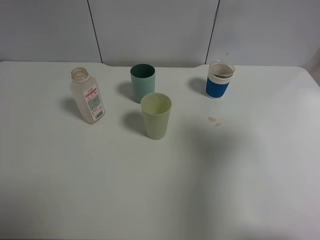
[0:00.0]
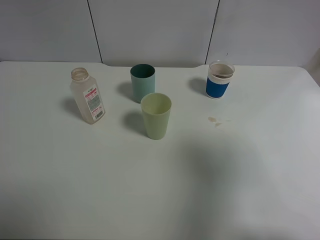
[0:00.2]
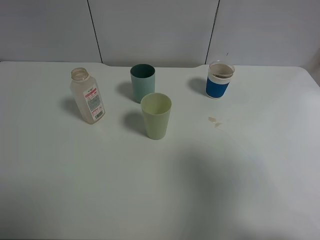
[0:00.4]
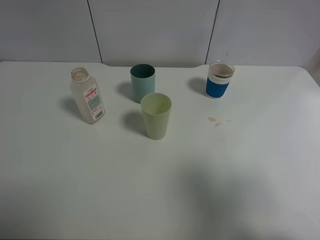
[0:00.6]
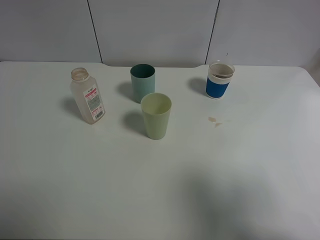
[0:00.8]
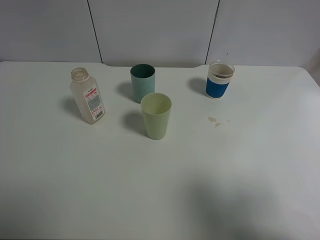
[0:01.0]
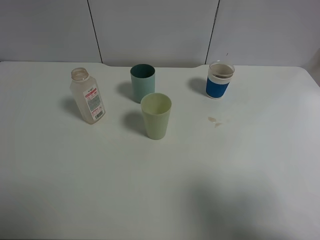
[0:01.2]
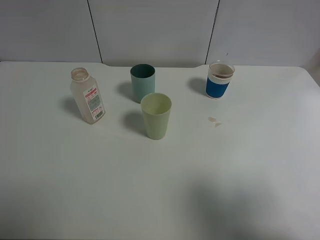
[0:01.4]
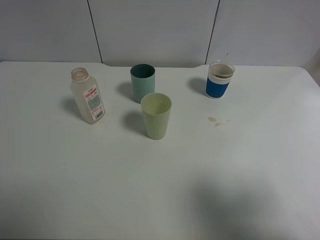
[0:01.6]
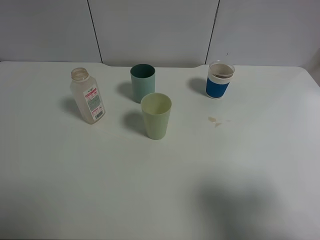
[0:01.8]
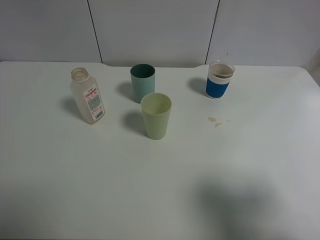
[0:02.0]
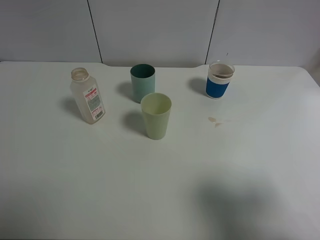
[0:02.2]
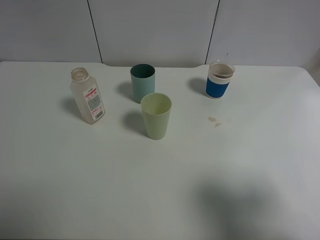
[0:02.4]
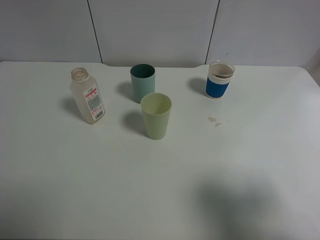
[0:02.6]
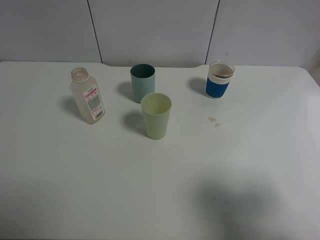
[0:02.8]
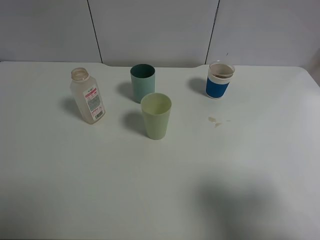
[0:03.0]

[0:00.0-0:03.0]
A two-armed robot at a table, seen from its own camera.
Task of the whole recording: use a clamp to hold the bottle of the drink, pour the beverage into a random cup, then clamp the cup containing the drink and pour the drink into another random cup.
0:00.0 to 0:01.6: The right gripper shifts approximately 10 cm backward.

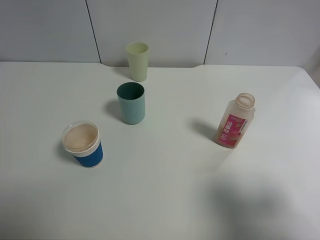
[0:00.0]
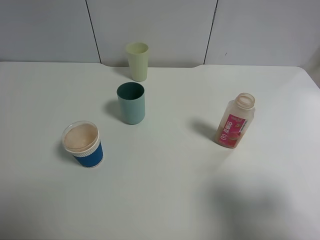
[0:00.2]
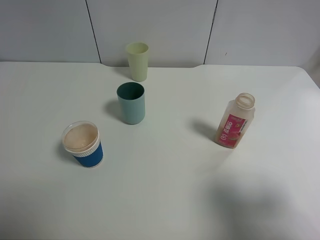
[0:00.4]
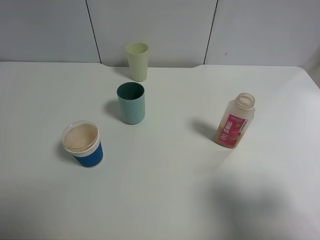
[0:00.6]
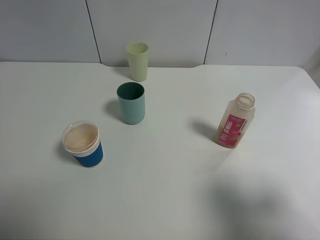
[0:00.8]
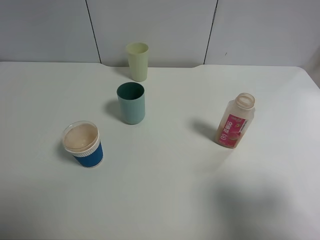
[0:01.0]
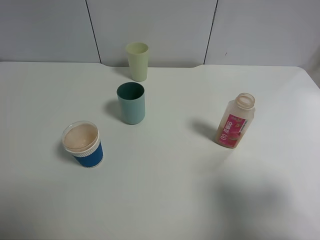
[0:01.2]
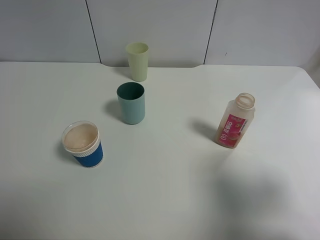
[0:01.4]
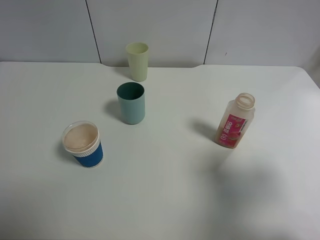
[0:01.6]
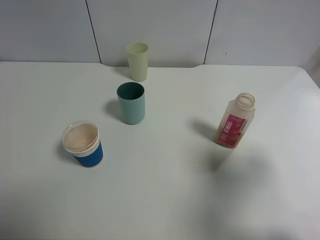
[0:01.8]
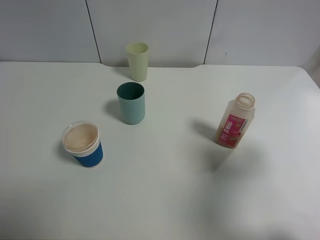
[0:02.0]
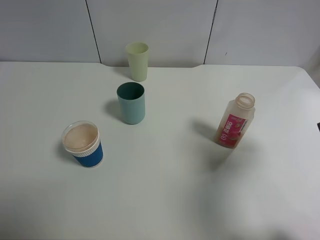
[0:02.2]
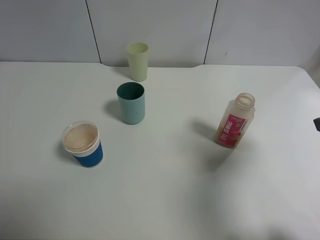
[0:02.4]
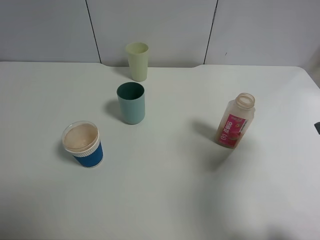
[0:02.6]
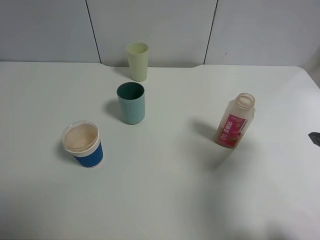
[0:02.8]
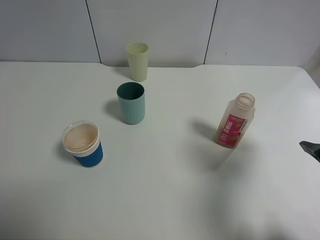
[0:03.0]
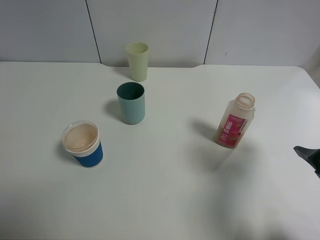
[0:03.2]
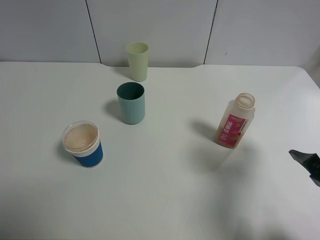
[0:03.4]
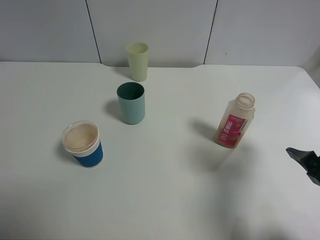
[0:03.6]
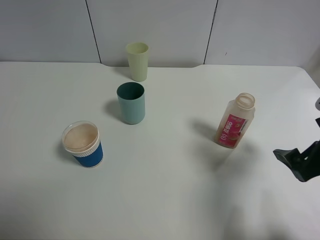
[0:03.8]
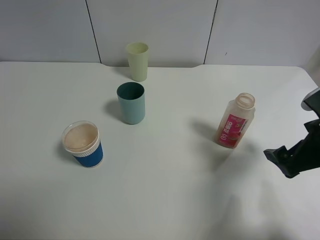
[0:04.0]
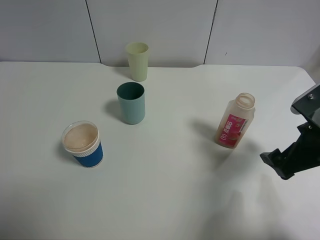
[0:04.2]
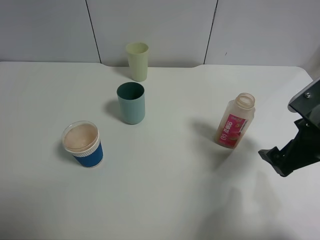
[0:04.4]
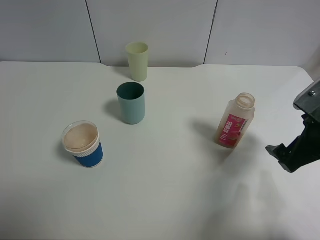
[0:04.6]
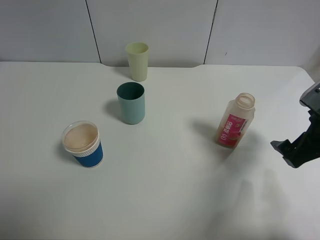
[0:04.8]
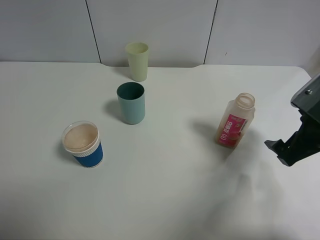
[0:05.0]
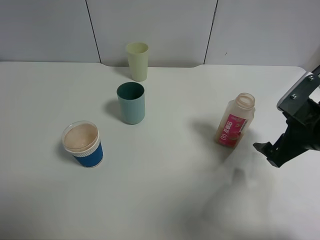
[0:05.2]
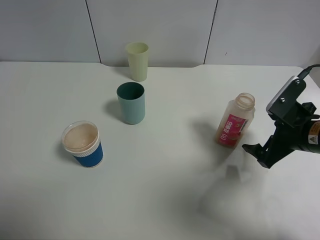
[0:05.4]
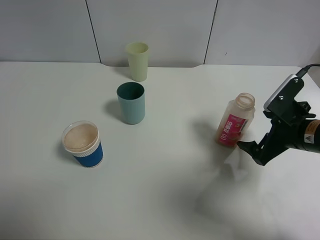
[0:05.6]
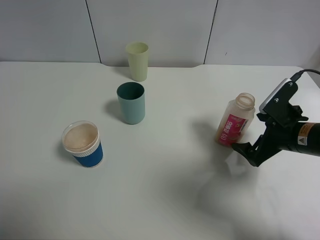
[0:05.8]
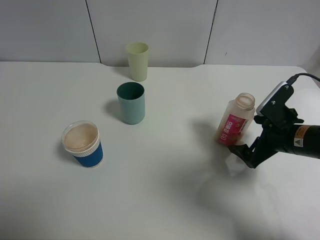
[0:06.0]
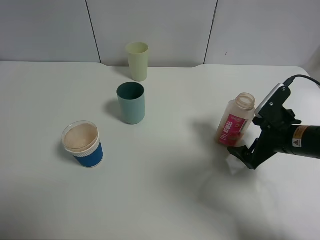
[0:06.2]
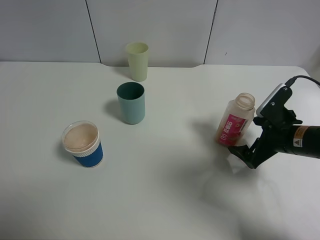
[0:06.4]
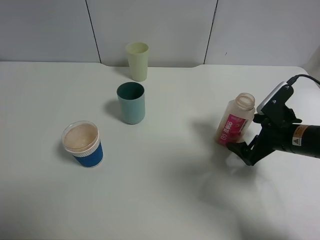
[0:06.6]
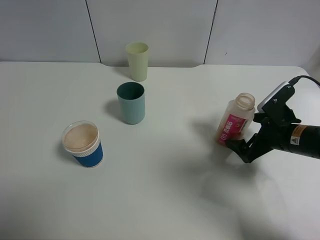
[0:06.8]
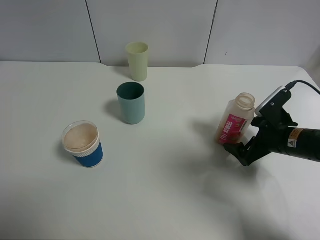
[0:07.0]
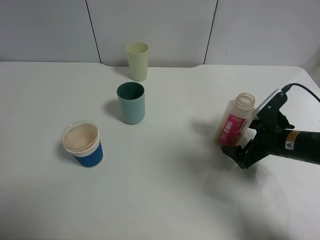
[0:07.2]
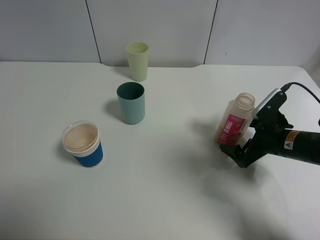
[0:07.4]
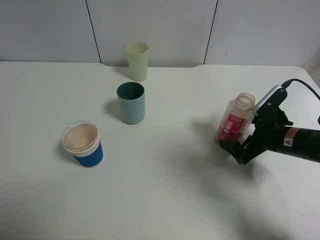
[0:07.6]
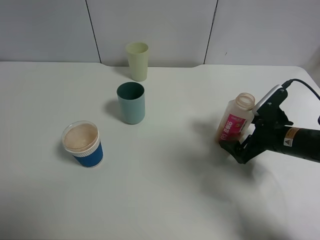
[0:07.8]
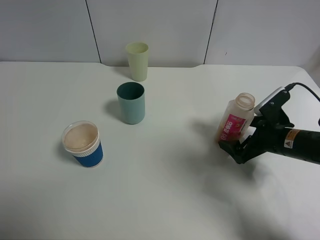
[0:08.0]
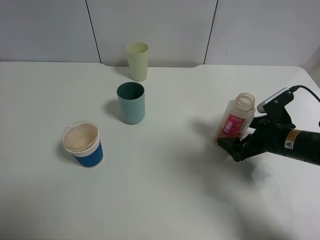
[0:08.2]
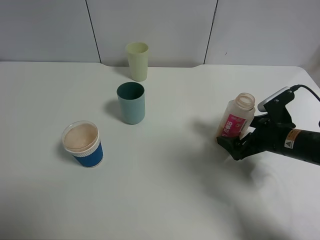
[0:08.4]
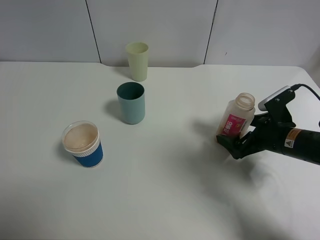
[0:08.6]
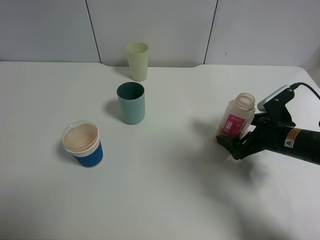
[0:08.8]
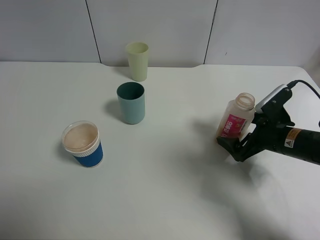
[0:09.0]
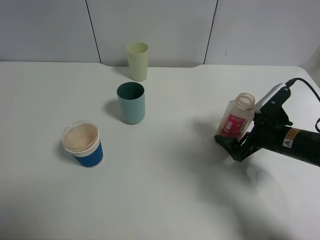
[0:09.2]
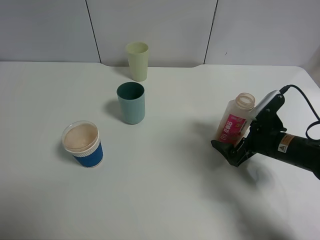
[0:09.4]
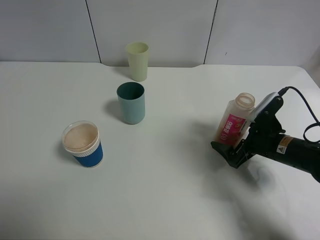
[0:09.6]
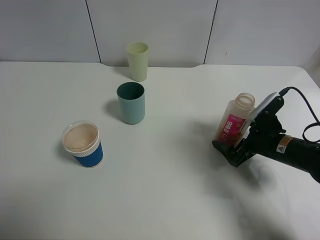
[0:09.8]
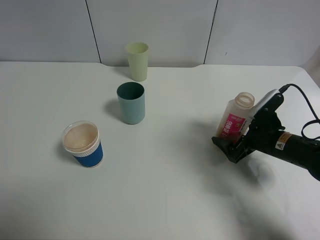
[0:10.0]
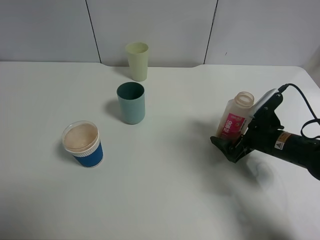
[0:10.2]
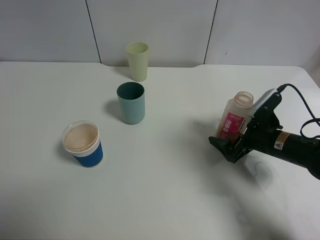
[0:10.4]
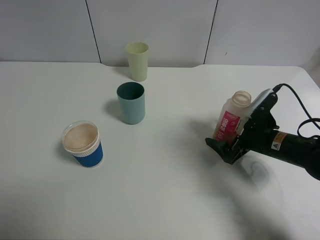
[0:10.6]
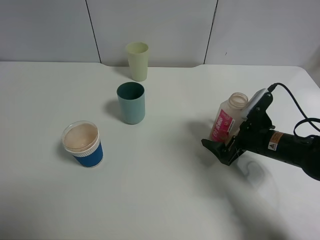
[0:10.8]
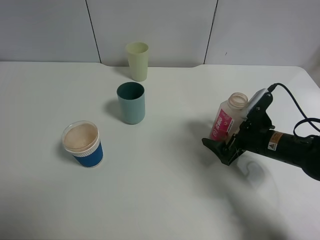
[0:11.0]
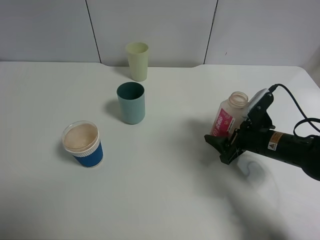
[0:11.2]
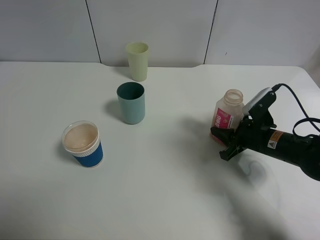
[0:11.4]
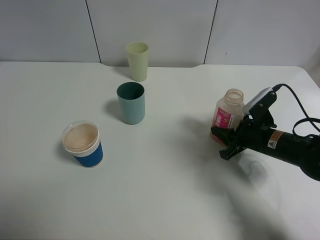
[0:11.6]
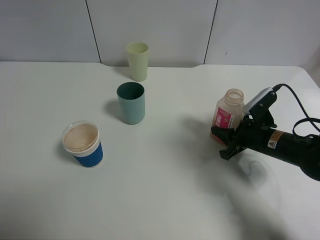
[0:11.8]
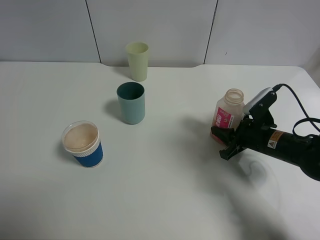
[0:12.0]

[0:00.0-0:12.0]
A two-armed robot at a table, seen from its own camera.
Task of the whole recording: use a clamp to hold the bottle of the drink, pour the beverage into a random cup, then clamp the cup containing the drink and pour the drink into another random cup.
0:00.0 to 0:01.6: The grippers move only a little.
0:01.6 to 0:03.0: The right gripper heads forward, covering about 10 cm.
0:03.0 to 0:04.4: The right gripper travels downward by about 5 cm.
0:04.4 to 0:06.0: The right gripper shifts some 10 cm forward and downward.
0:06.0 to 0:10.4: The grippers move only a little.
0:10.4 to 0:12.0: The right gripper closes its fingers.

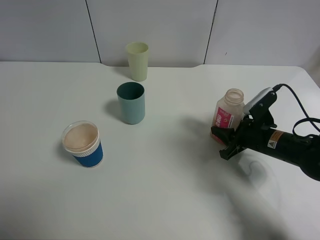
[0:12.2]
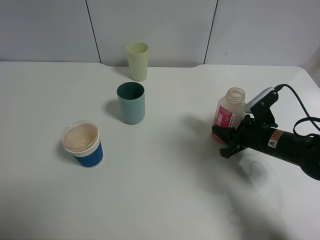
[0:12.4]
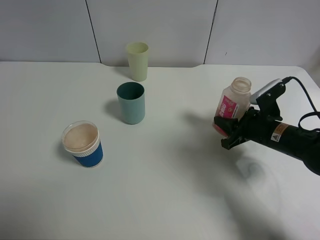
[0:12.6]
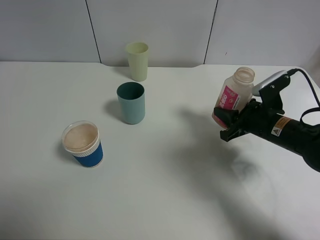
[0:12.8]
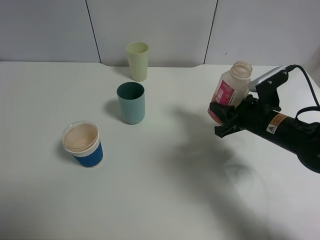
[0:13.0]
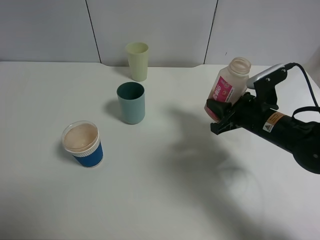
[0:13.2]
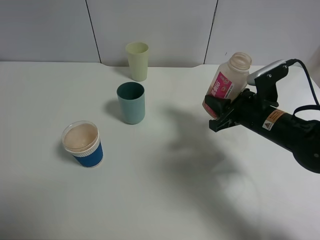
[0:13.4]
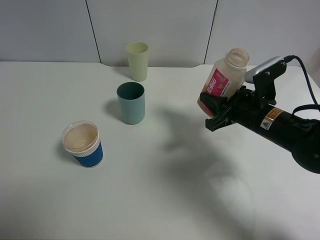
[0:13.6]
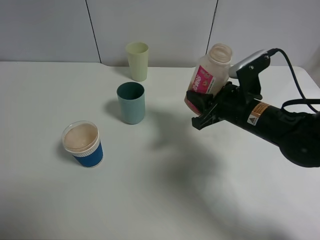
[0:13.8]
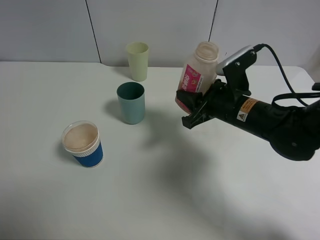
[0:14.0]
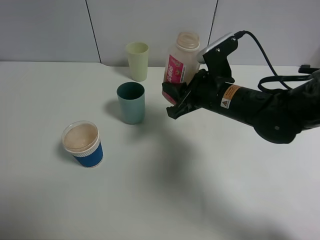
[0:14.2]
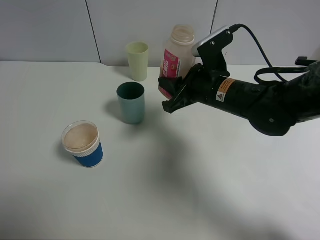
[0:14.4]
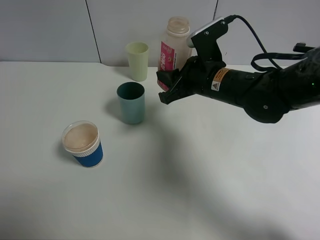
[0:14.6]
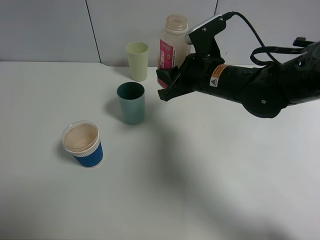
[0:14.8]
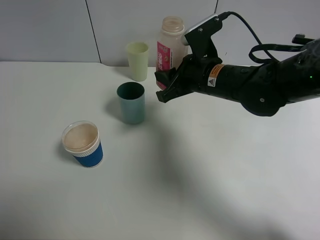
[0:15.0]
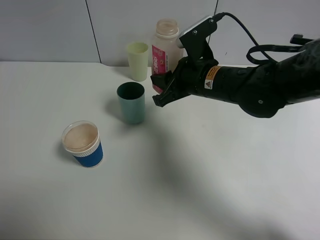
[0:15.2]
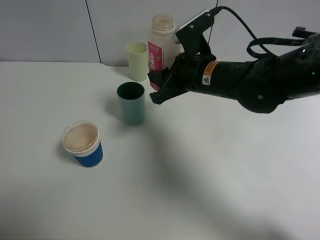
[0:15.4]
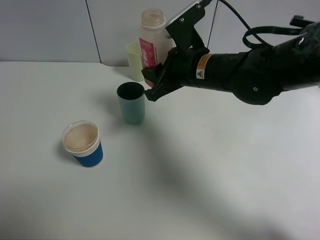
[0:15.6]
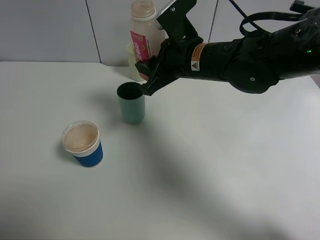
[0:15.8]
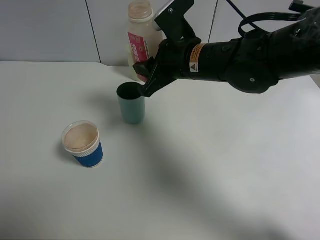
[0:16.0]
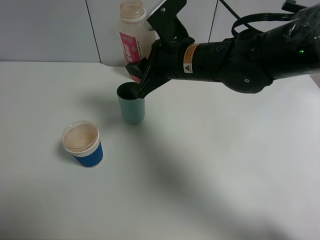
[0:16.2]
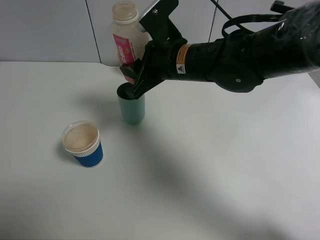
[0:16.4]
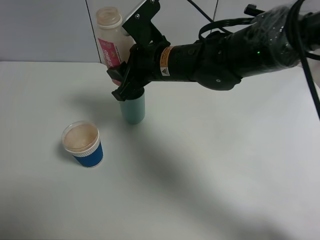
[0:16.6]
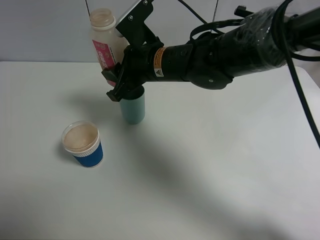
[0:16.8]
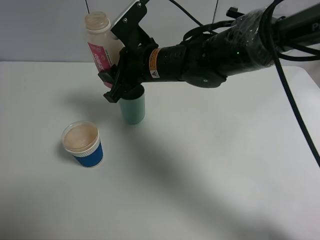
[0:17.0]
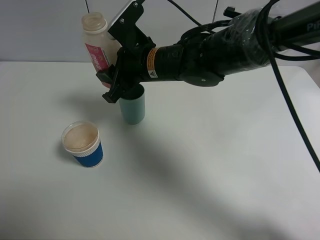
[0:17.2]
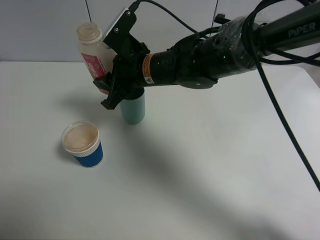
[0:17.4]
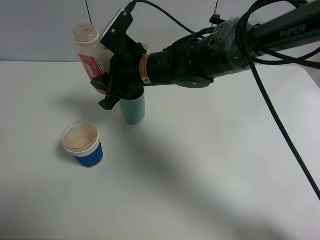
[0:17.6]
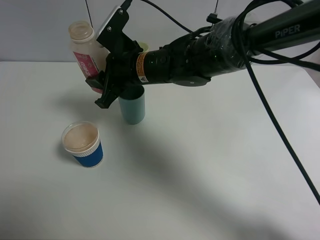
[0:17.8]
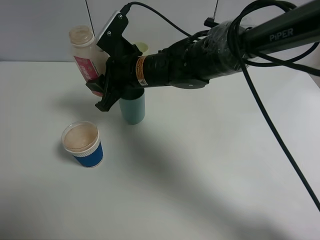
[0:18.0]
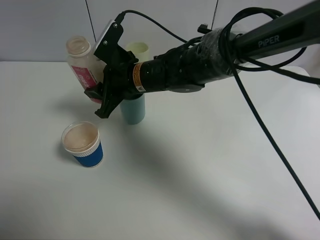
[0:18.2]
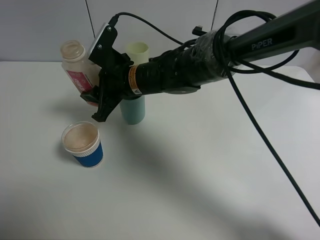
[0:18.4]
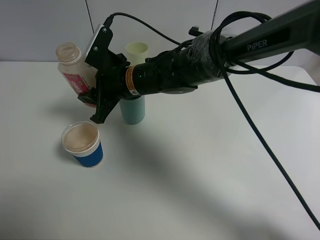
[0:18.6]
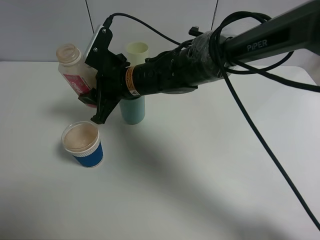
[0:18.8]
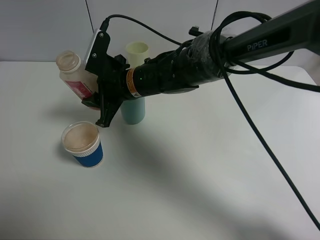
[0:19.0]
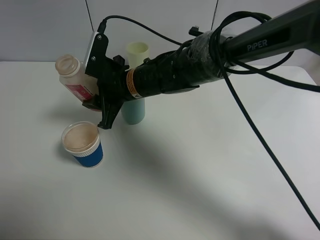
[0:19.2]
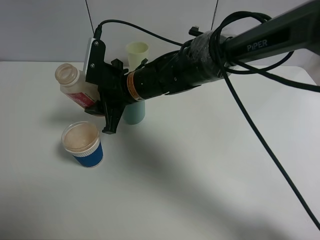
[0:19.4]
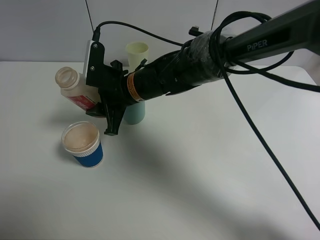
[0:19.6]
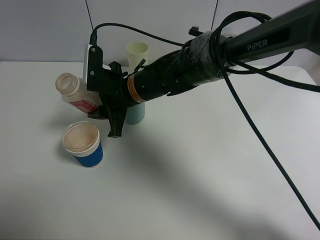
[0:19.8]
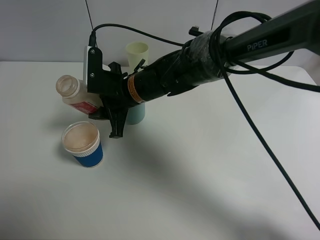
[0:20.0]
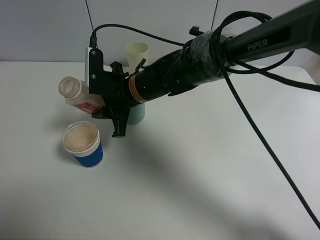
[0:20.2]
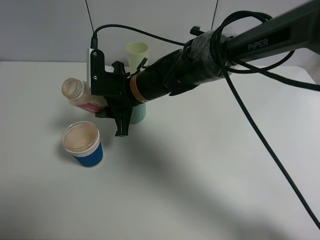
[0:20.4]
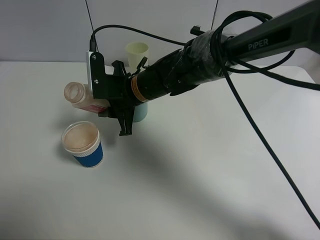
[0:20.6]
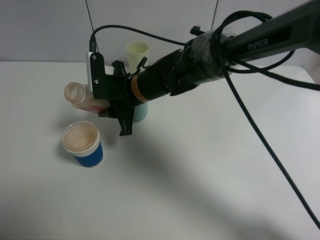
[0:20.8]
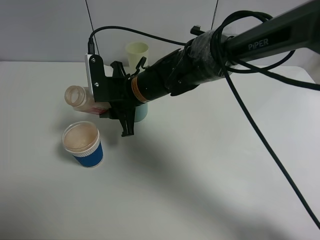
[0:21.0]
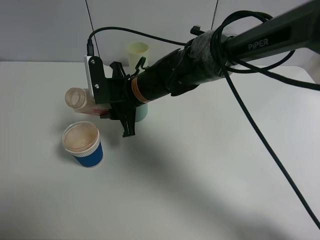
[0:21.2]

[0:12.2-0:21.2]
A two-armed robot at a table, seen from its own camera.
Task of the whole recording: use a clamp to hold the bottle of the drink, pour the beverage into a random cup, then clamp the cup containing the drink and pour the drink into another random cup.
0:12.2 to 0:13.8: The right gripper moves upward and to the left, some 10 cm.
0:13.8 to 0:15.2: The right gripper goes approximately 10 cm to the left.
0:15.2 to 0:16.6: The right gripper goes approximately 5 cm to the left.
0:16.6 to 0:18.2: The right gripper is displaced to the left by approximately 5 cm.
0:19.8 to 0:21.2: The grippers move only a little.
